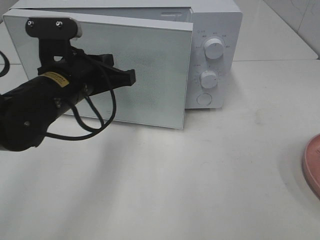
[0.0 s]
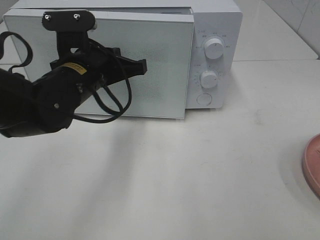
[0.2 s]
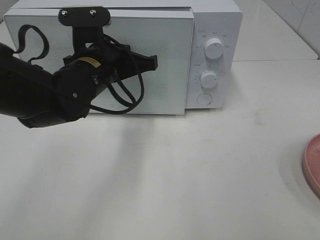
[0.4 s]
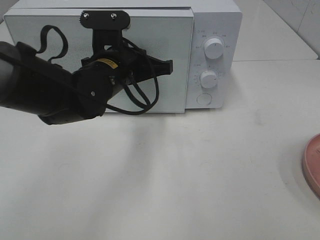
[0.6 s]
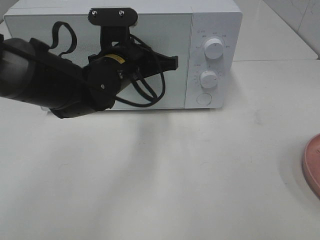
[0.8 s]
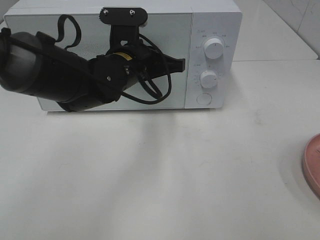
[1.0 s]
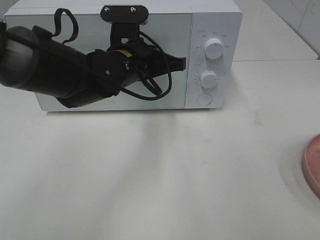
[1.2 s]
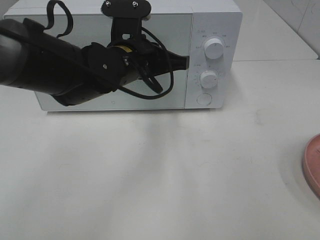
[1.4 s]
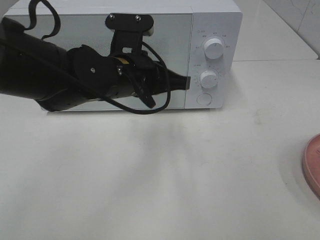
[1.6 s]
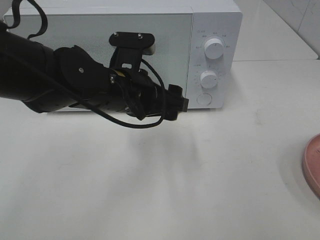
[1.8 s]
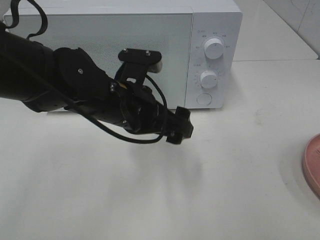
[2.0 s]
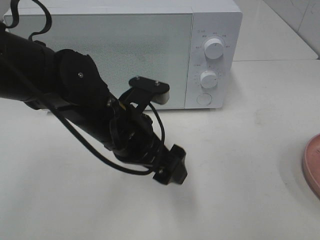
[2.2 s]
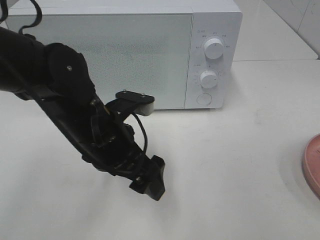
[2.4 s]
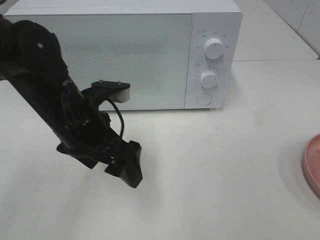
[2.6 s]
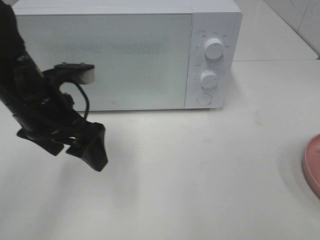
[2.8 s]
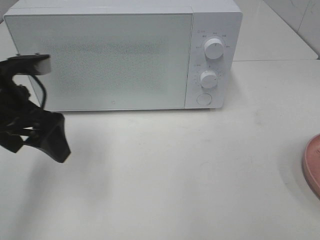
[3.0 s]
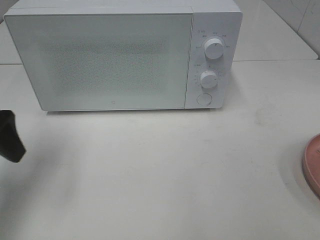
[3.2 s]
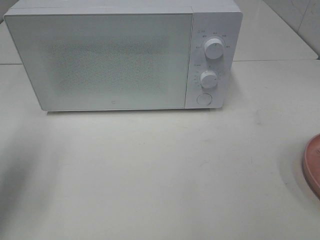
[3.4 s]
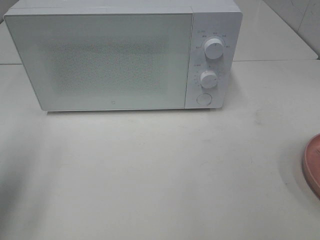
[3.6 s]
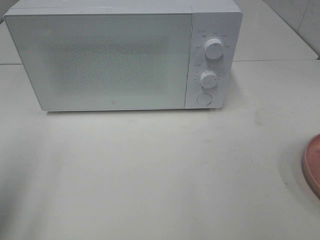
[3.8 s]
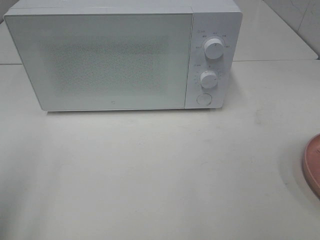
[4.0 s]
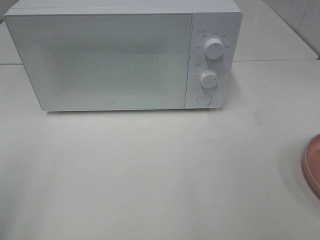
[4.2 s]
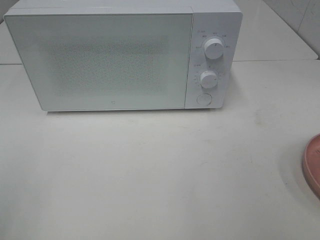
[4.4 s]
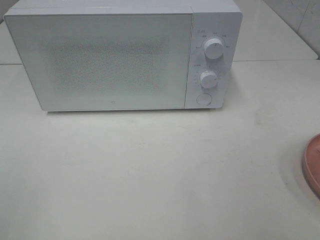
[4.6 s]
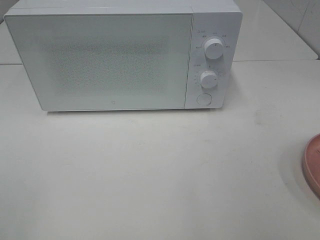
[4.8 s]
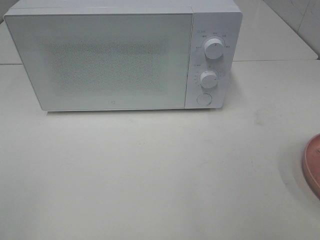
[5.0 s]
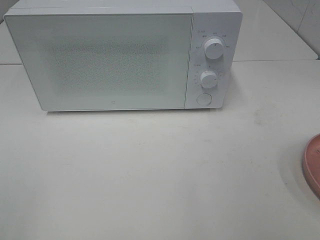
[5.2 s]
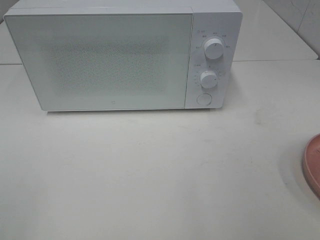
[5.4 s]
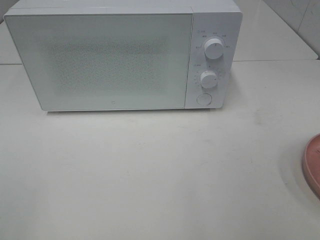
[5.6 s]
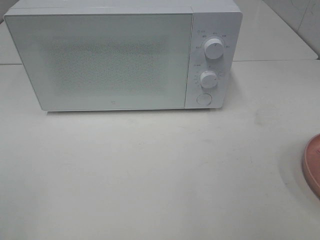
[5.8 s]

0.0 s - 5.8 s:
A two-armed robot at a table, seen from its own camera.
Task of the whole recording: Heat the burger.
0.0 s - 1.4 s: The left gripper heads to the right, covering some 10 cm.
1.4 s - 2.8 s: The left gripper is displaced to the left and backward by some 15 cm, and opens up.
2.8 s - 4.4 s: The left gripper moves backward and to the left, approximately 30 cm.

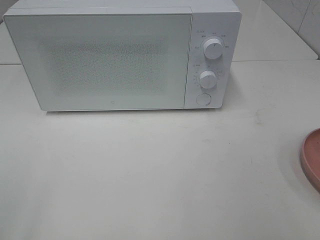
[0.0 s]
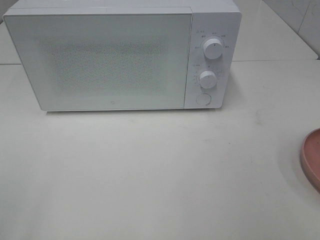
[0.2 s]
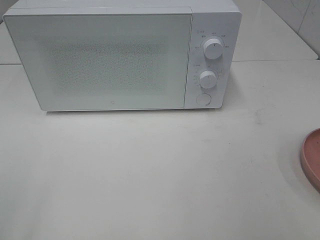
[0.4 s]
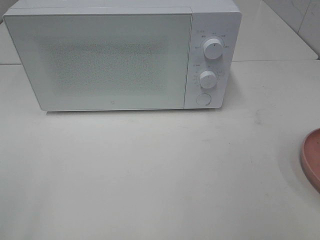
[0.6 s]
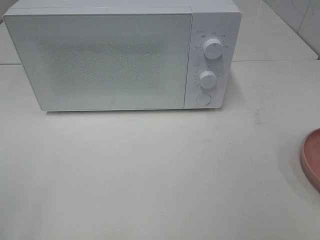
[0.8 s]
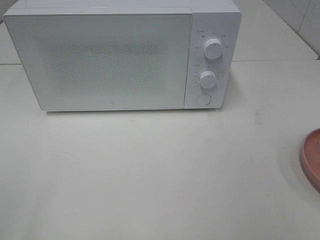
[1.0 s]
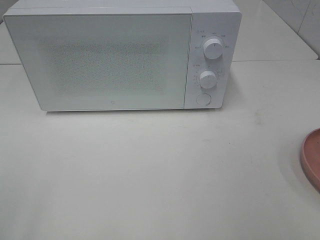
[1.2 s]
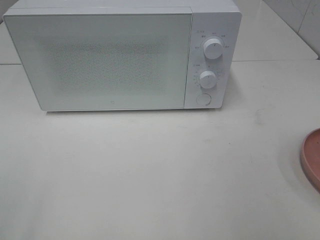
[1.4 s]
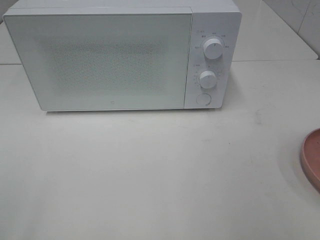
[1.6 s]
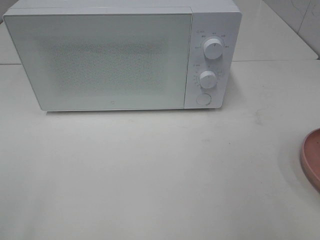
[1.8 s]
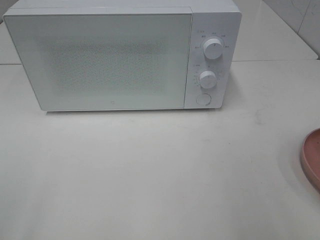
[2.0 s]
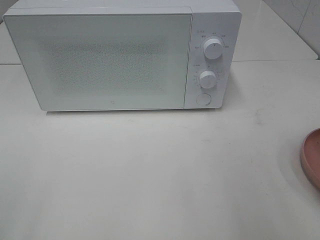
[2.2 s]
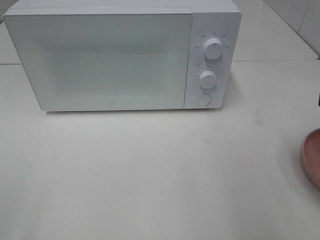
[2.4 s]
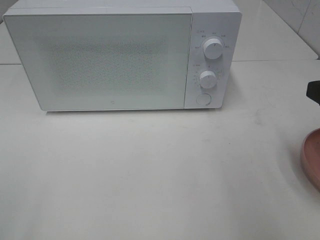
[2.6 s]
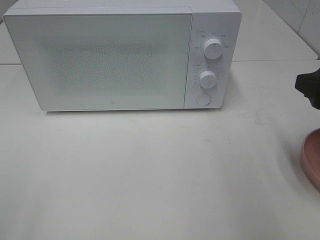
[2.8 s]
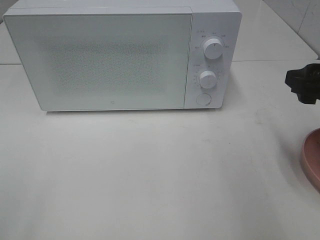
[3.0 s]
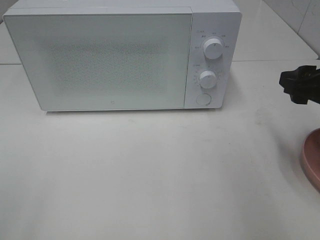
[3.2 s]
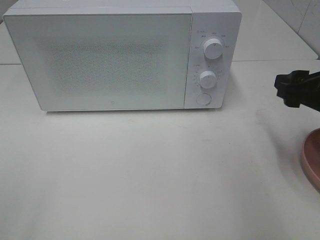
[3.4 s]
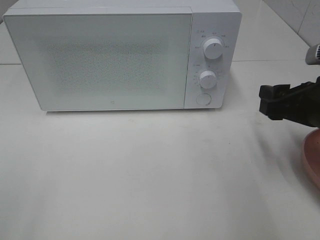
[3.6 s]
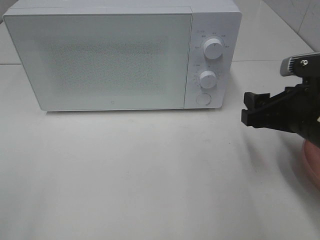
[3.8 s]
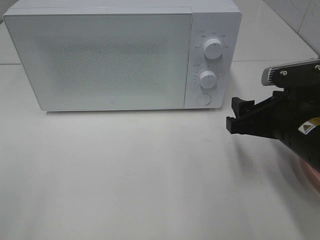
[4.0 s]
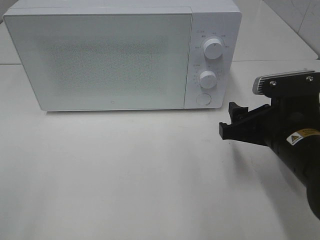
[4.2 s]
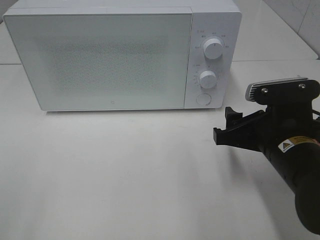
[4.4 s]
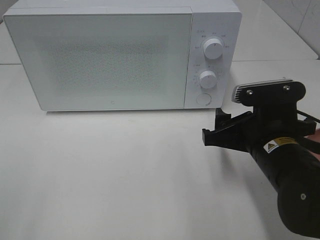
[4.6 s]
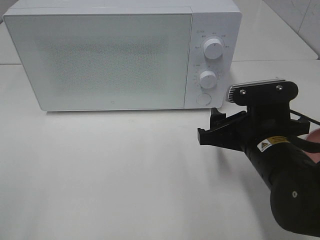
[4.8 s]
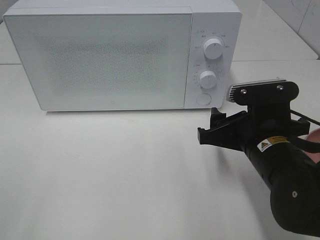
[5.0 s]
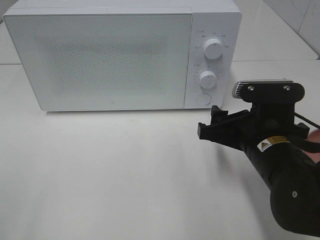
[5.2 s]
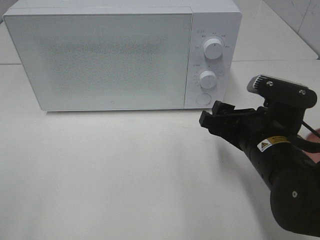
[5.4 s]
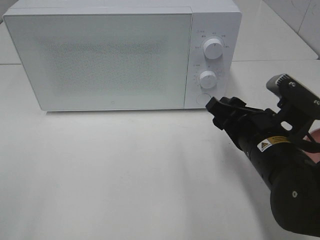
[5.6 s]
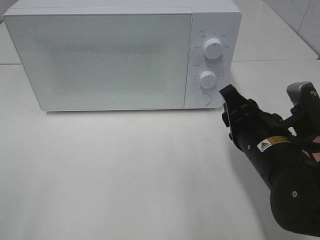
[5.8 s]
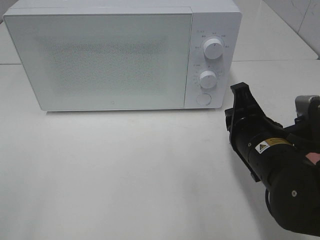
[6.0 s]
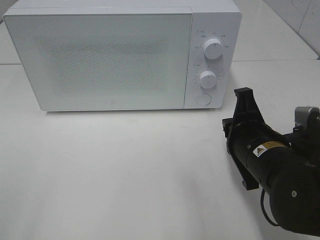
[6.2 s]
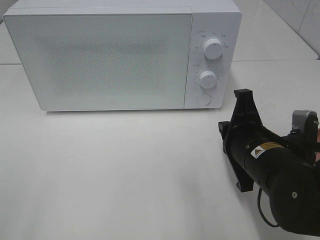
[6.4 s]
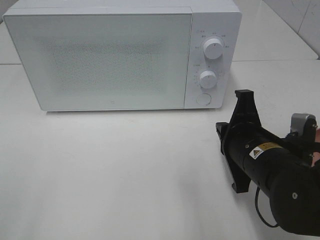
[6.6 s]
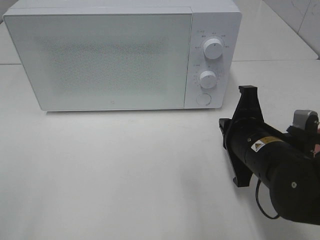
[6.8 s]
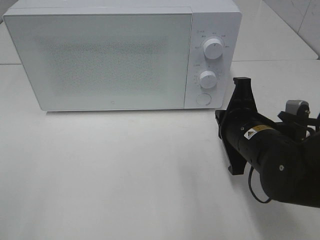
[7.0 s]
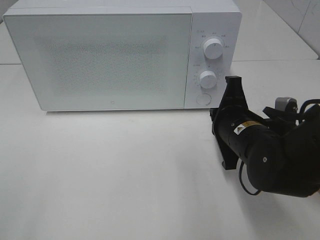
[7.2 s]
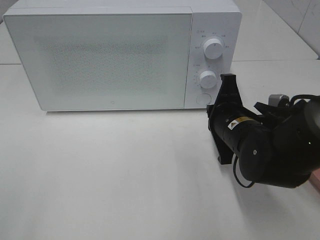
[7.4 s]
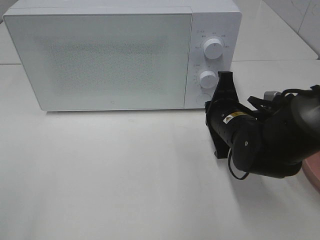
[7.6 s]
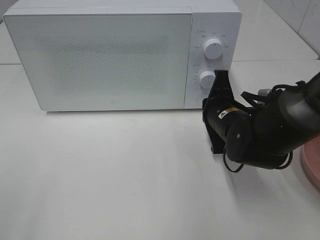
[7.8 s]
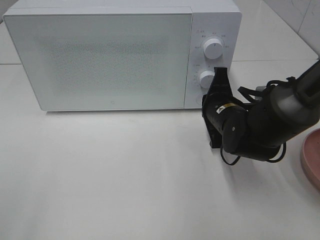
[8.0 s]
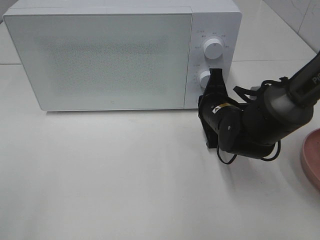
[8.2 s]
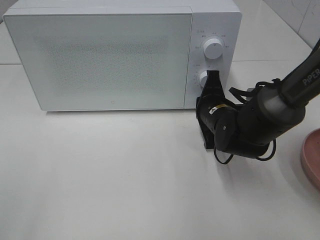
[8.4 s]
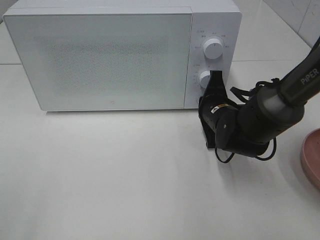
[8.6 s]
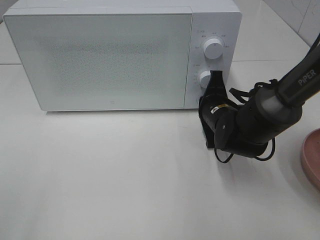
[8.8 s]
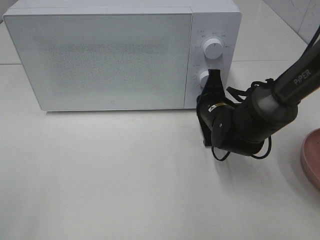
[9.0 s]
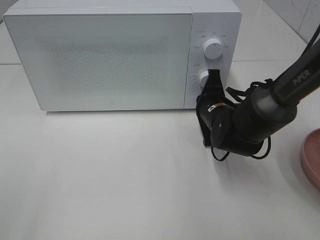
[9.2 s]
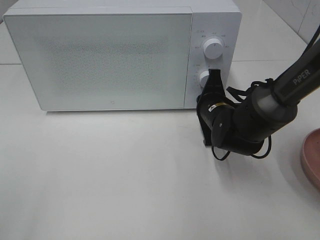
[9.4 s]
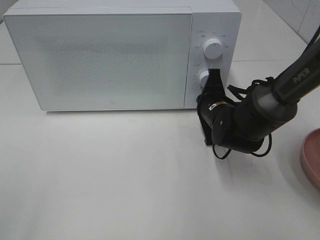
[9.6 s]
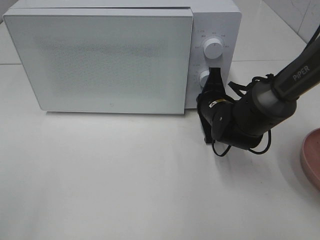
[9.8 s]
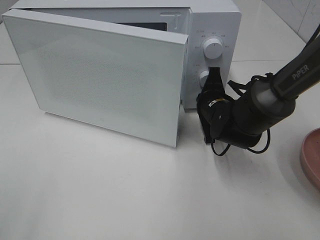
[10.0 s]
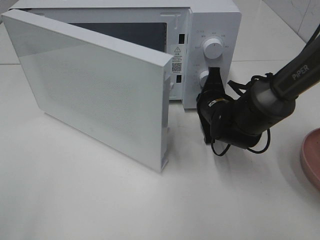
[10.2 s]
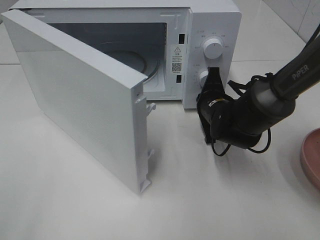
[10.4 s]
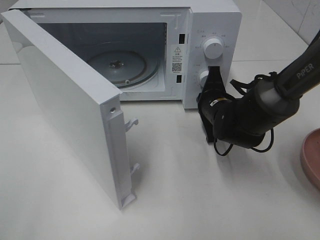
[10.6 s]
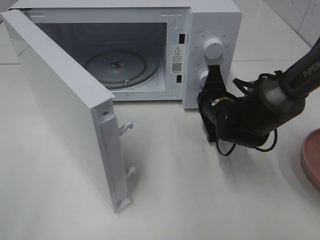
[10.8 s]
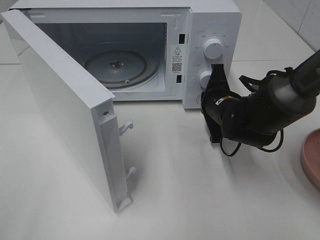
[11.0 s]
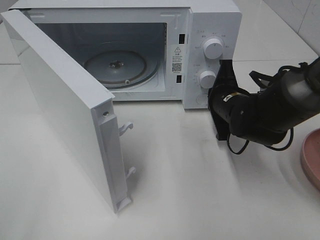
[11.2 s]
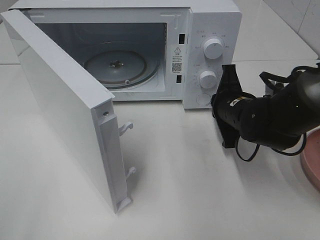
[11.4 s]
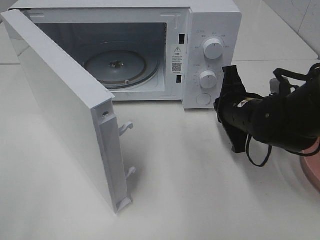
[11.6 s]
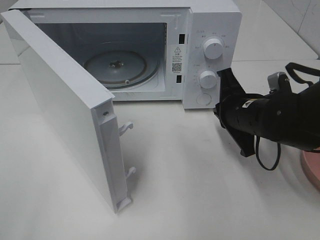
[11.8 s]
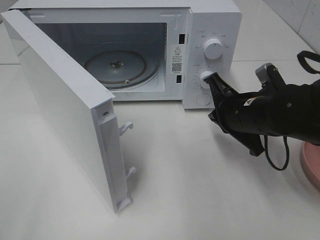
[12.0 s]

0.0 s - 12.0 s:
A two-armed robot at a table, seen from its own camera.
Task of the whole recording: Heat the burger.
Step, 0.0 s - 11.0 s: Right hand: press the switch.
1.6 s - 3.0 s: The right gripper goes about 20 cm forward and downward.
3.0 s - 4.4 s: The right gripper shifts approximately 10 cm to the left and downward.
4.4 s - 6.0 s: The right gripper closes its fingers.
6.0 s - 7.6 s: The right gripper is displaced forward by some 10 cm.
7.6 s - 9.0 s: The right gripper is displaced forward by roughly 5 cm.
10.4 s - 12.0 s: The right gripper is displaced backward and upward by some 10 cm.

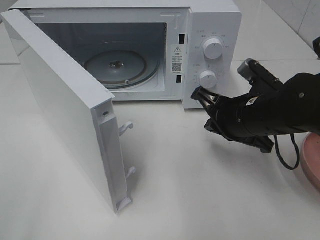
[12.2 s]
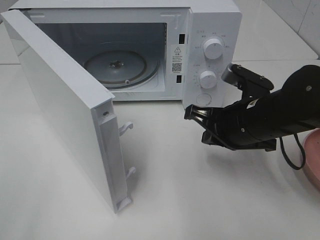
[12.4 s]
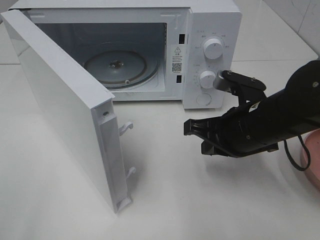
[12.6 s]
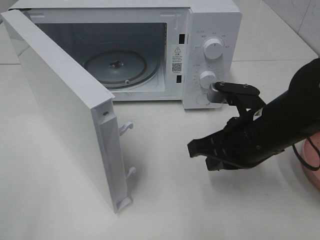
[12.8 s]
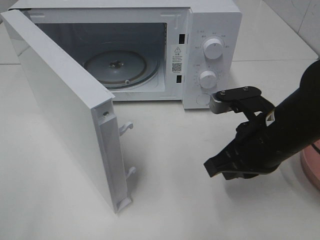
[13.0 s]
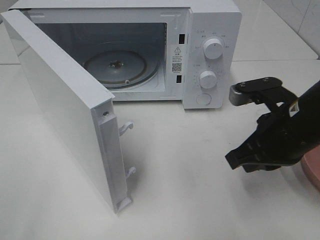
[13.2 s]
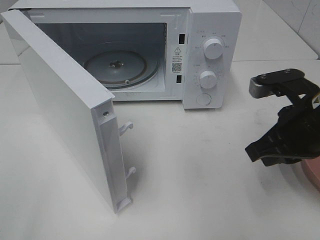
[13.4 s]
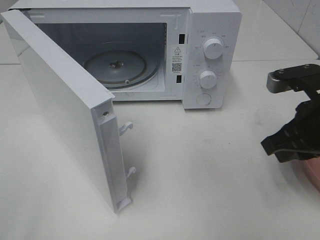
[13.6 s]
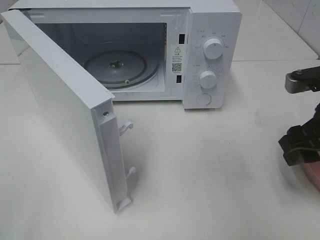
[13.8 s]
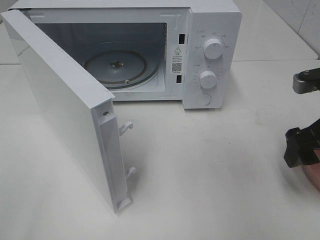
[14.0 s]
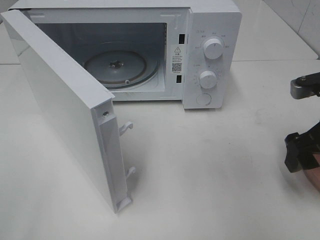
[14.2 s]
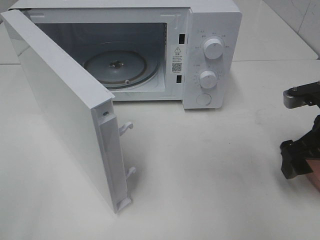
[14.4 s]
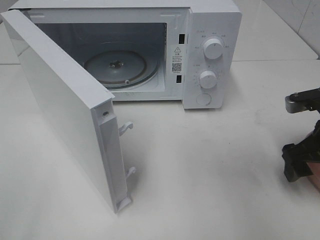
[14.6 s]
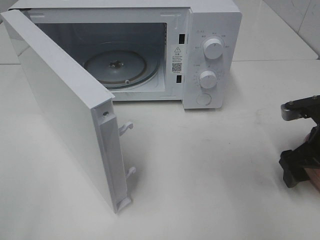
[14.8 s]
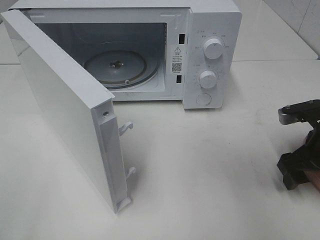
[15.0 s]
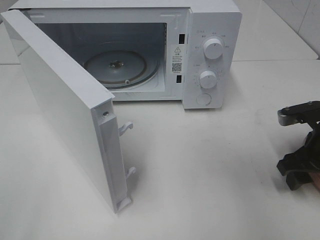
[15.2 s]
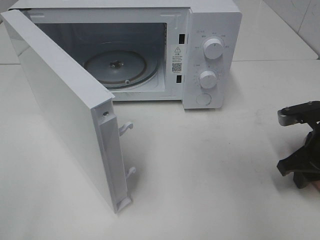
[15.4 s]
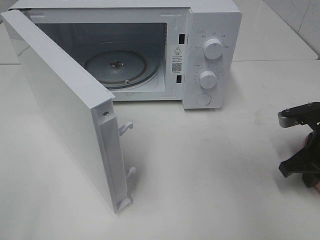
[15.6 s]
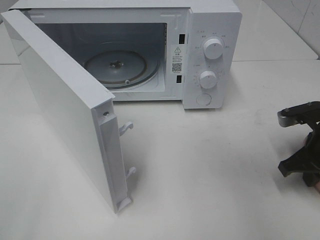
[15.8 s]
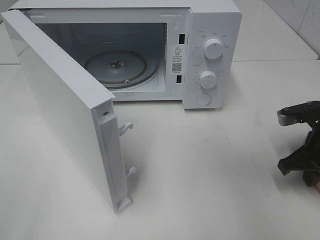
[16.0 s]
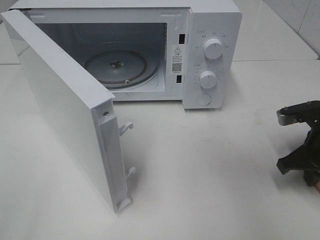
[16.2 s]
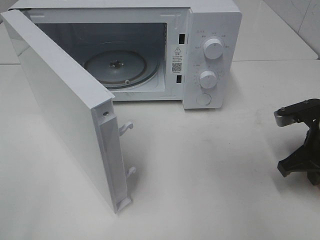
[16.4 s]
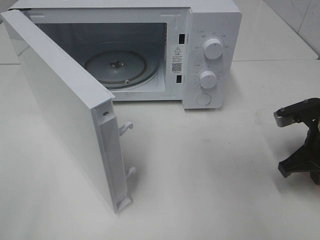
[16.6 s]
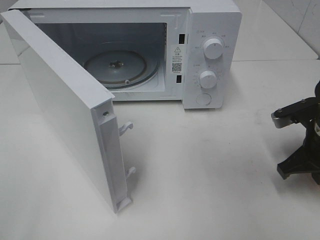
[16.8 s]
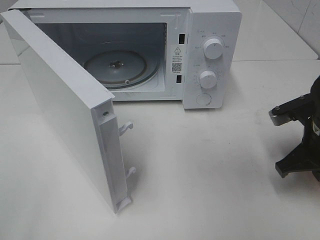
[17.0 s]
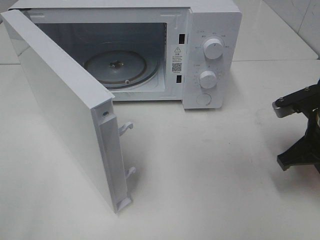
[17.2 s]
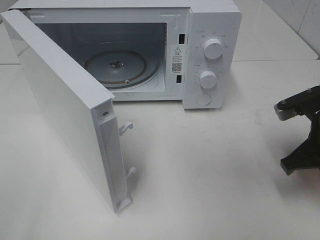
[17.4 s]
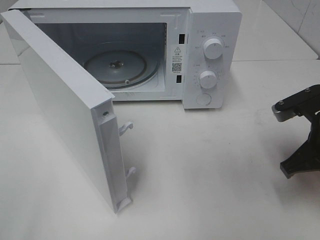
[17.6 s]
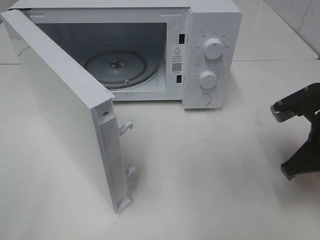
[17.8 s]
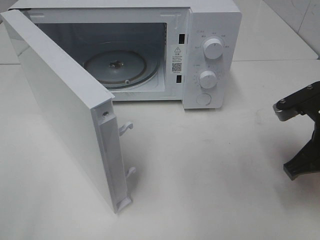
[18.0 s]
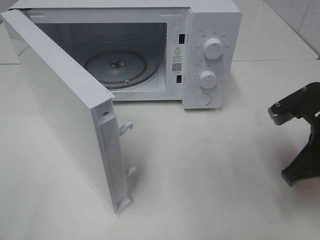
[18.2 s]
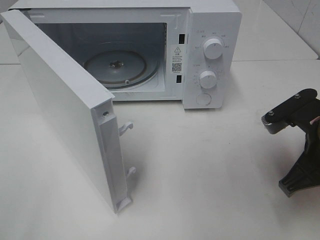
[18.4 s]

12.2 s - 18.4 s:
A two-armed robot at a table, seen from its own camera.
Task of the whole recording: Heat the burger.
Step, 12.2 s - 15.8 s: Right hand: grab the plate with the hamburger.
12.2 s - 13.8 s: The right gripper goes roughly 10 cm to the right, and opens its fingers.
13.8 s - 15.4 s: The right gripper goes about 10 cm downward.
15.4 s - 16.8 s: The right gripper closes its fingers.
16.8 s - 18.4 s: The right gripper moves backward, some 5 cm.
